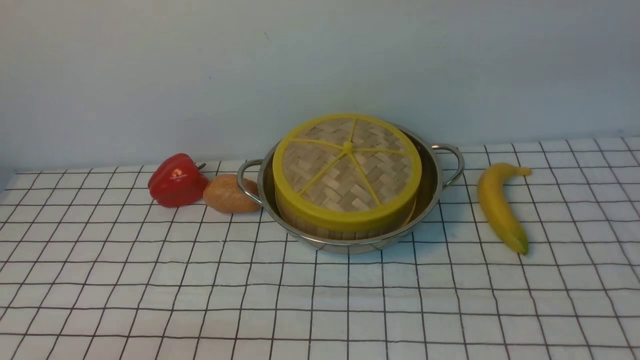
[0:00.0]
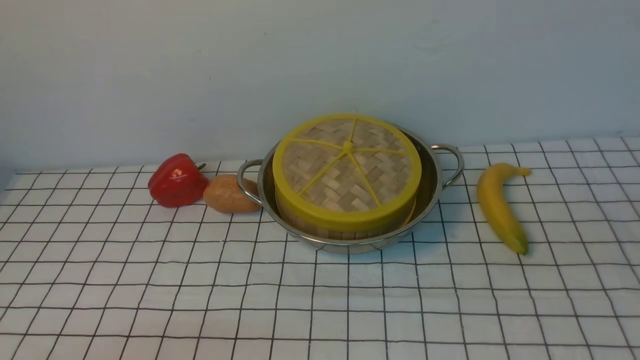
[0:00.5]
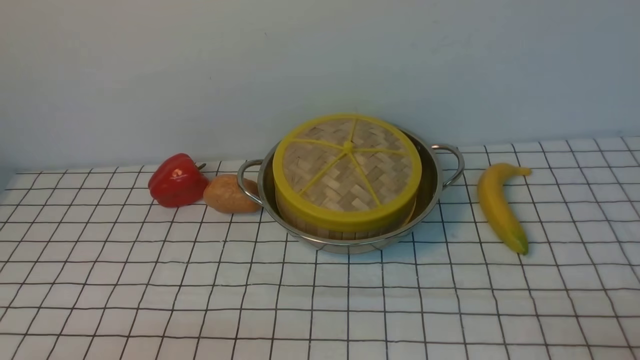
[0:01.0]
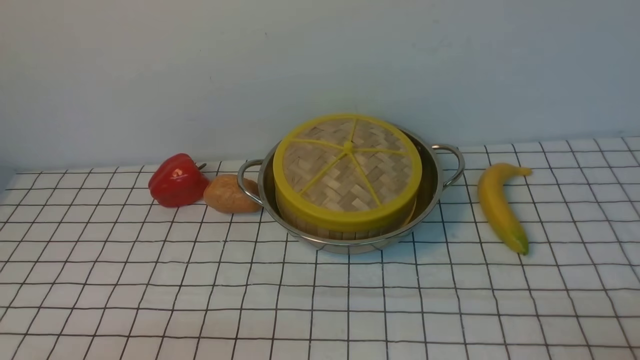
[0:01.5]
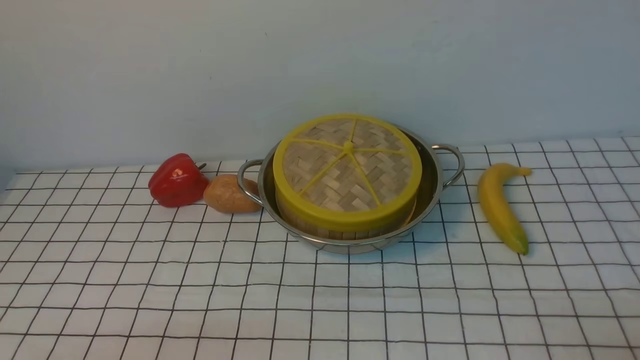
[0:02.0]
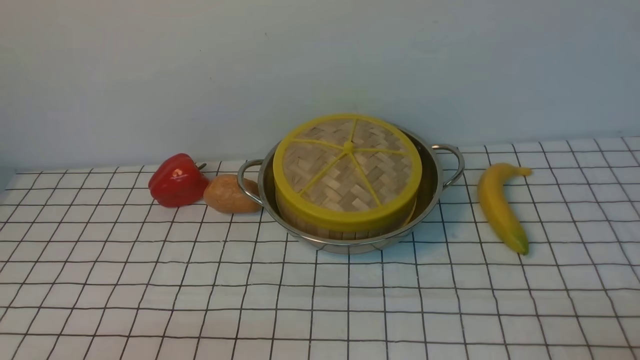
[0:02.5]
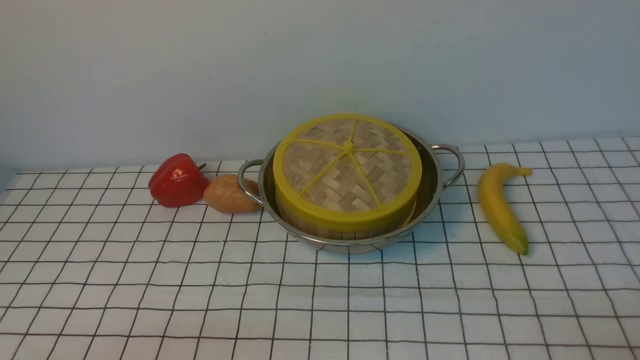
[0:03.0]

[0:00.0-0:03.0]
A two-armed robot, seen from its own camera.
Task of the whole recording: place the steamer in the pot on the white tablecloth, and put the lid on the steamer.
0:01.5 to 0:03.0: The two grippers keep their place.
